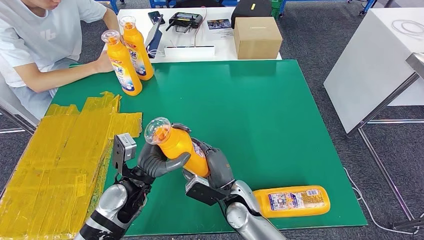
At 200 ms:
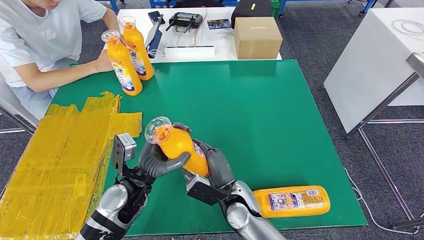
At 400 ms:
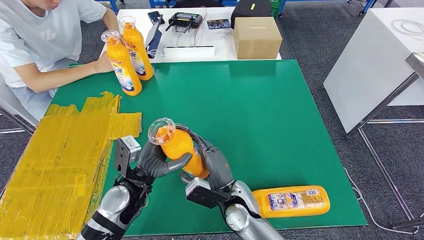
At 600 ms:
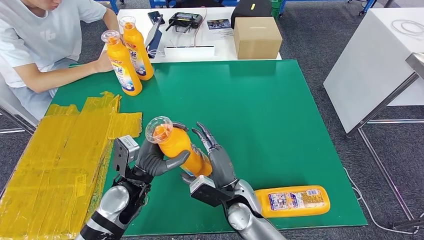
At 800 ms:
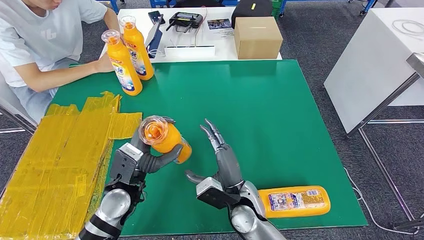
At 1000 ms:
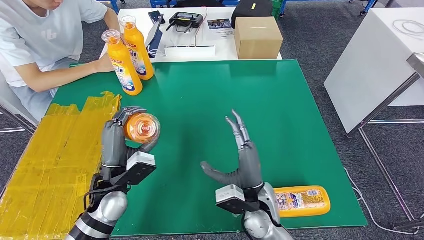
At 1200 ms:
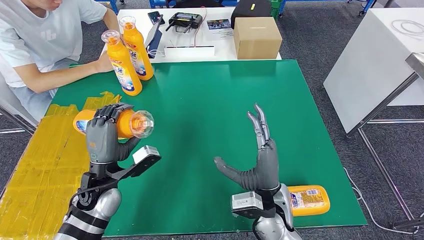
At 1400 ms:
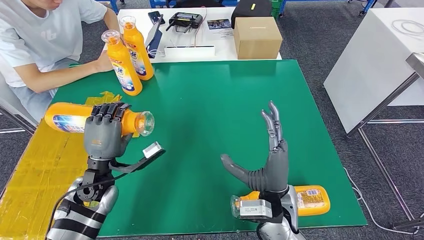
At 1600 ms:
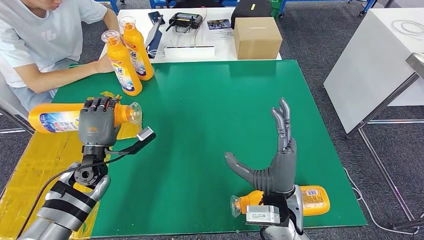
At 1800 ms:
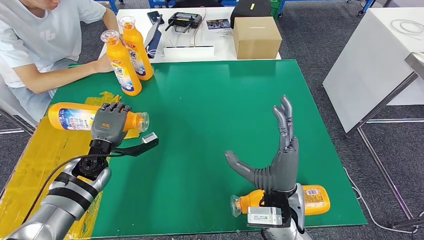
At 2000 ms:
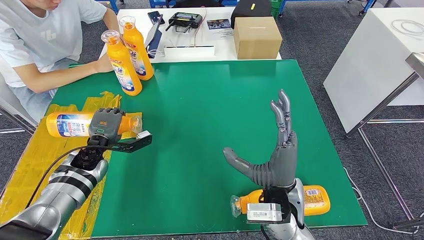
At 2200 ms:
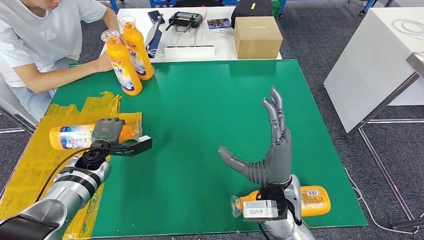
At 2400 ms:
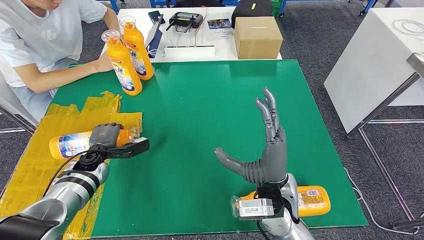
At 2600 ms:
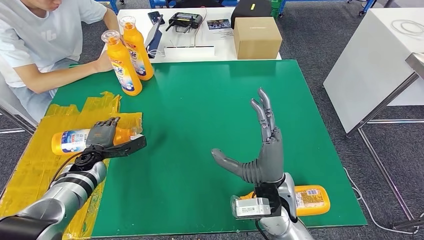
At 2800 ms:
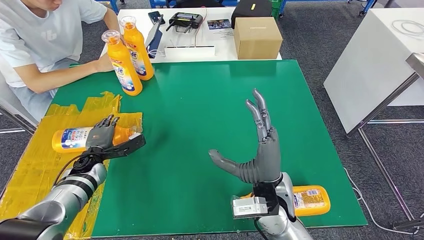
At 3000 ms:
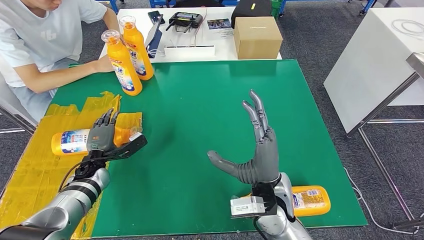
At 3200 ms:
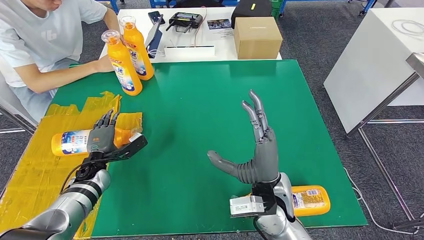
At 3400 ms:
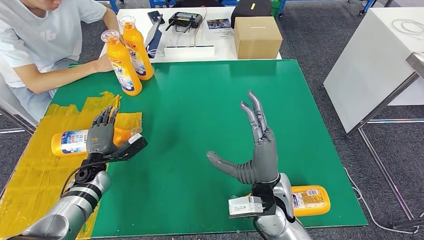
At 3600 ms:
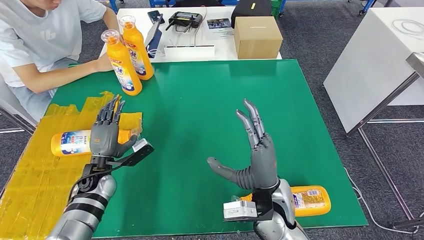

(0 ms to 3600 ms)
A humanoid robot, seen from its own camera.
Step, 0 ms - 3600 ms: Flip the fast-moving consumer goods bottle to the front side.
0 ms - 1800 ms: The left hand heads to the left and forward, covering about 15 cm; the right hand heads upward and to the right, covering about 15 cm.
1800 ms - 3600 ms: The left hand shifts by some 5 cm.

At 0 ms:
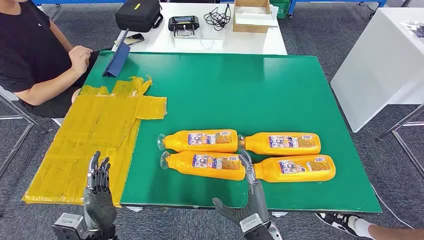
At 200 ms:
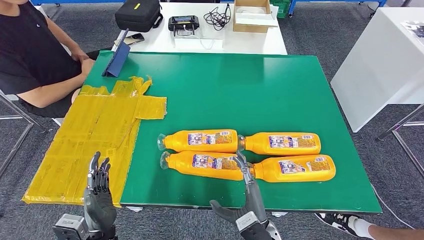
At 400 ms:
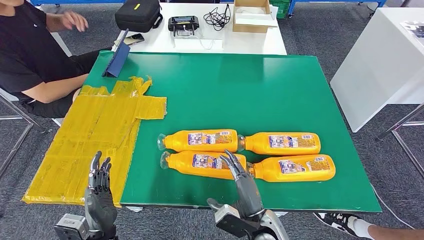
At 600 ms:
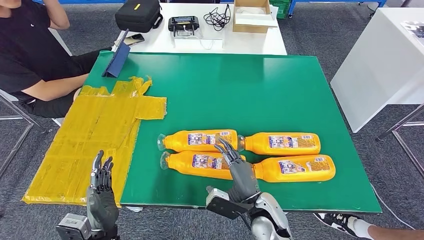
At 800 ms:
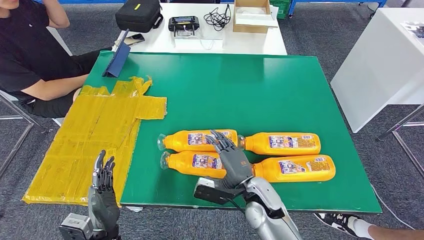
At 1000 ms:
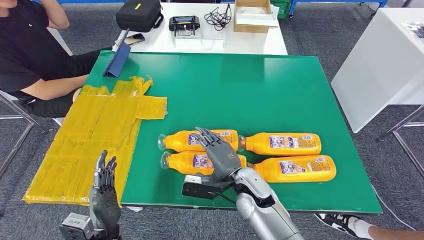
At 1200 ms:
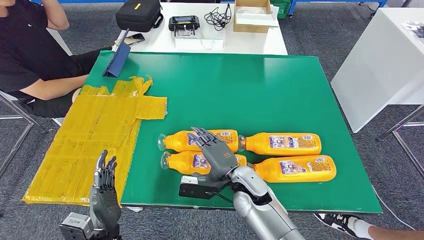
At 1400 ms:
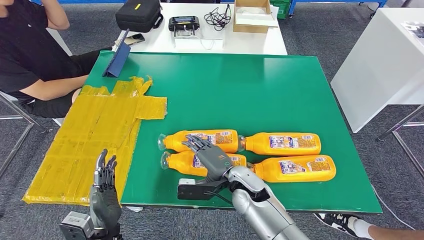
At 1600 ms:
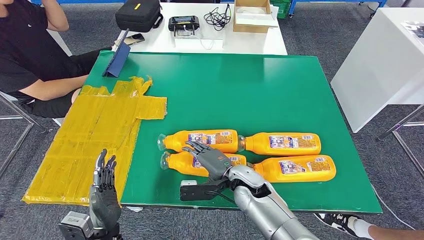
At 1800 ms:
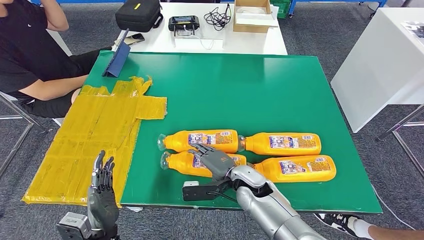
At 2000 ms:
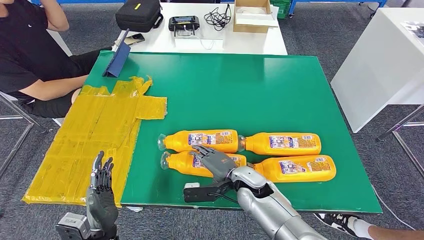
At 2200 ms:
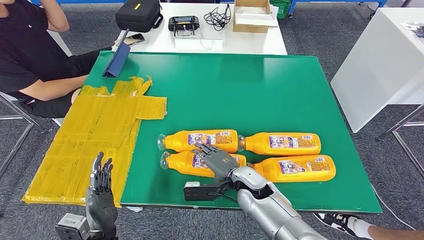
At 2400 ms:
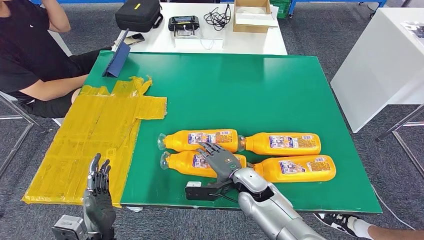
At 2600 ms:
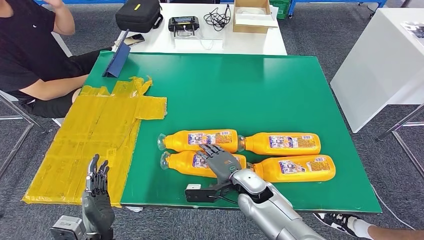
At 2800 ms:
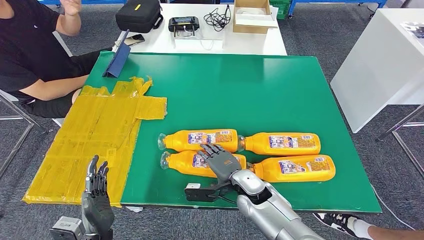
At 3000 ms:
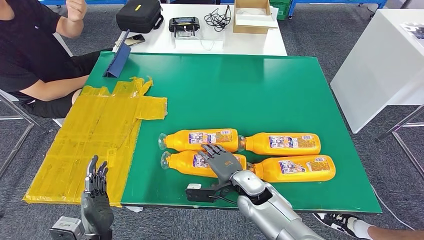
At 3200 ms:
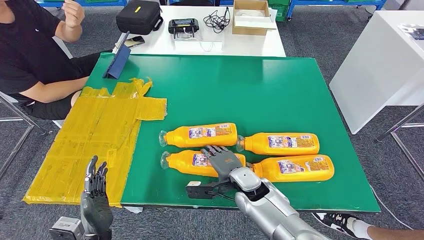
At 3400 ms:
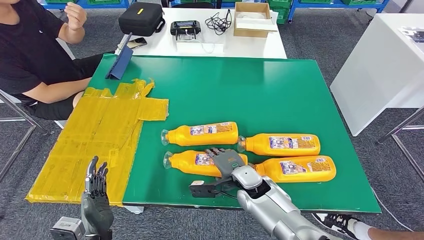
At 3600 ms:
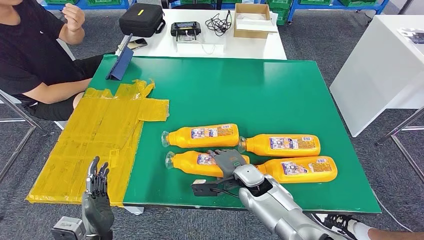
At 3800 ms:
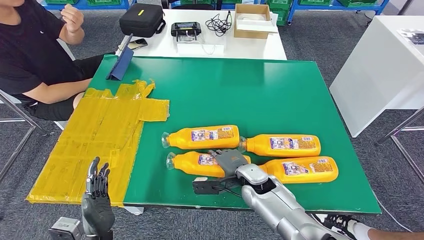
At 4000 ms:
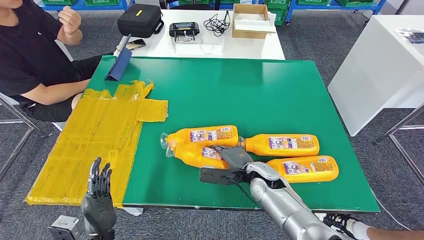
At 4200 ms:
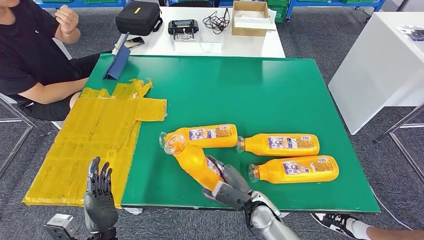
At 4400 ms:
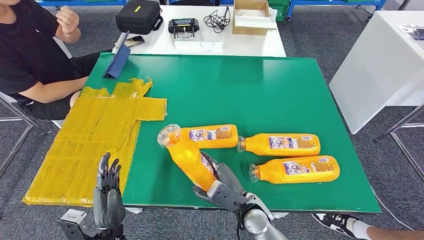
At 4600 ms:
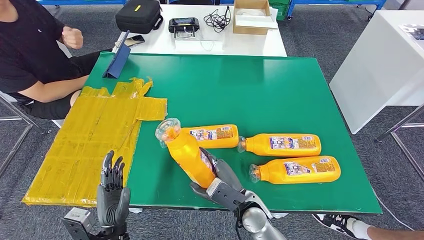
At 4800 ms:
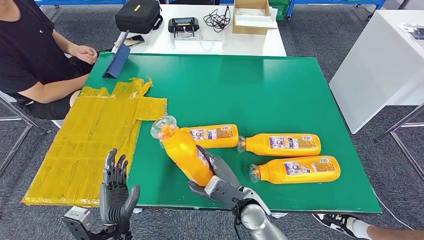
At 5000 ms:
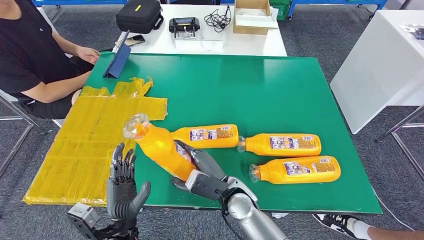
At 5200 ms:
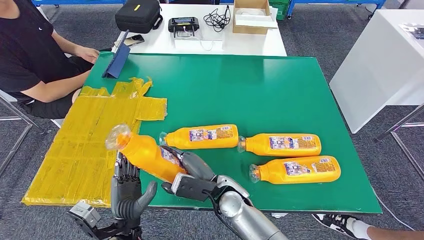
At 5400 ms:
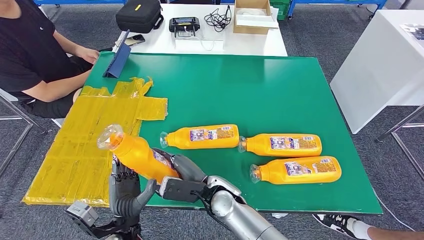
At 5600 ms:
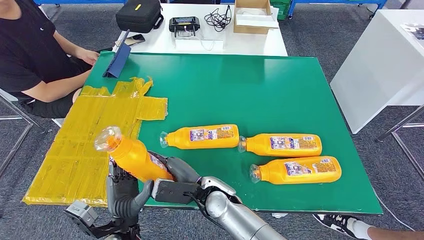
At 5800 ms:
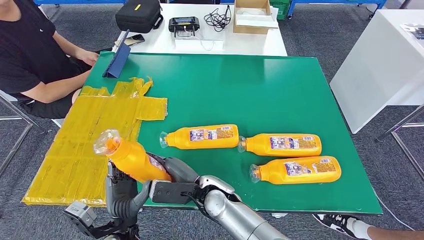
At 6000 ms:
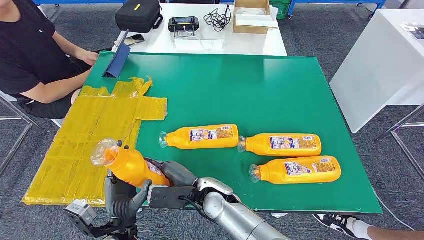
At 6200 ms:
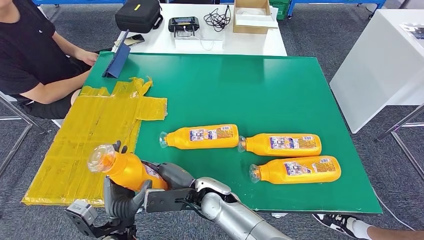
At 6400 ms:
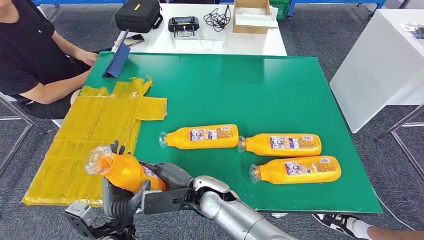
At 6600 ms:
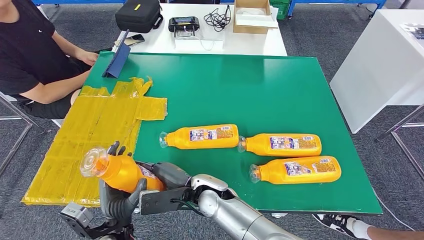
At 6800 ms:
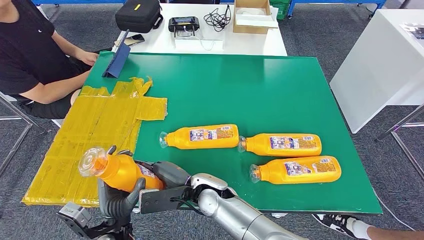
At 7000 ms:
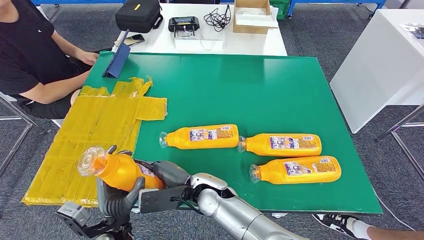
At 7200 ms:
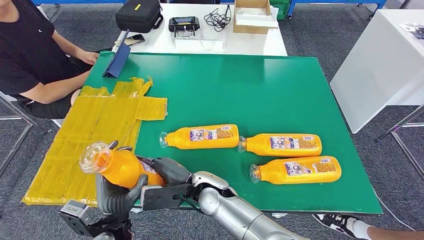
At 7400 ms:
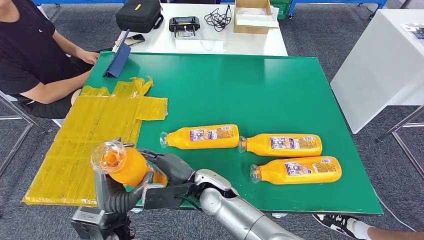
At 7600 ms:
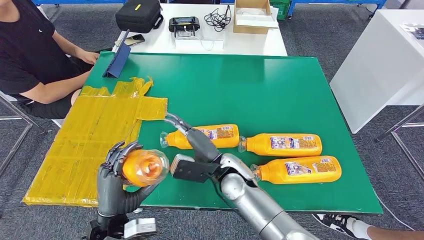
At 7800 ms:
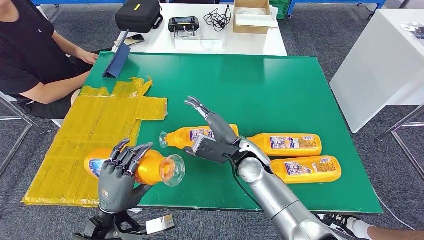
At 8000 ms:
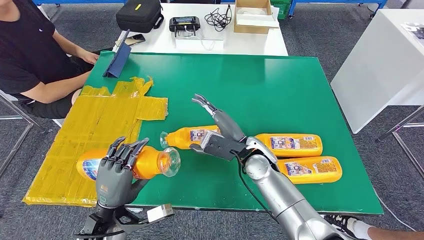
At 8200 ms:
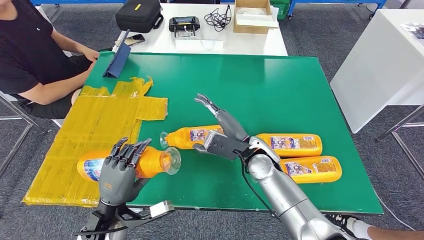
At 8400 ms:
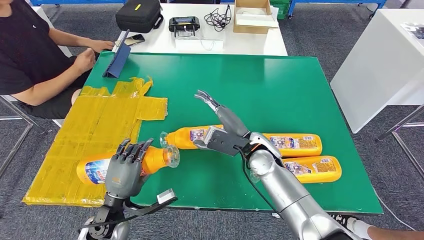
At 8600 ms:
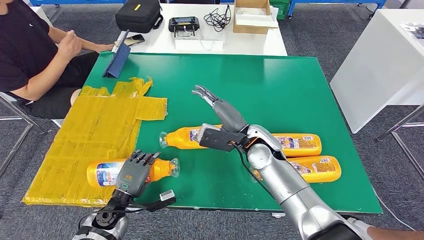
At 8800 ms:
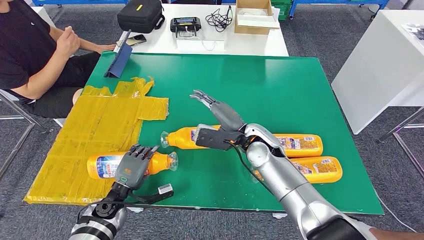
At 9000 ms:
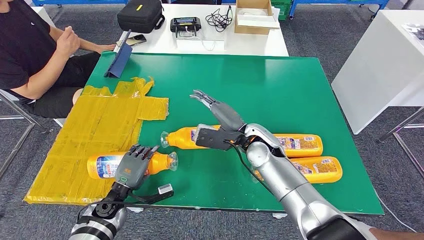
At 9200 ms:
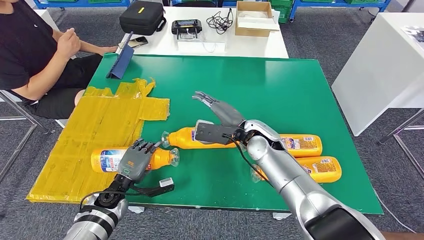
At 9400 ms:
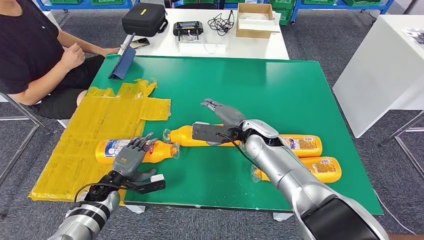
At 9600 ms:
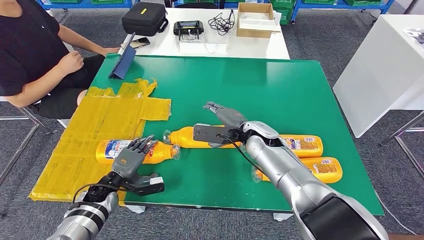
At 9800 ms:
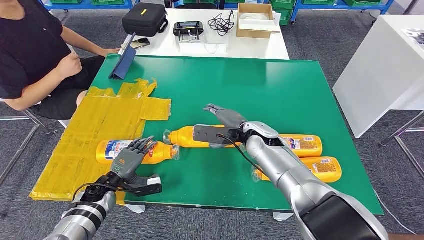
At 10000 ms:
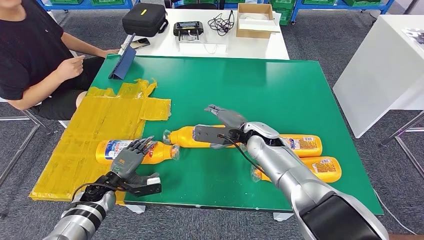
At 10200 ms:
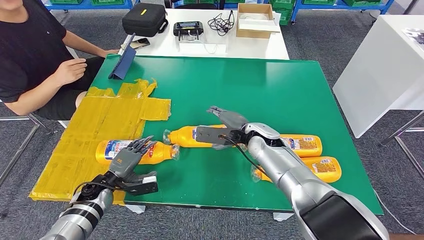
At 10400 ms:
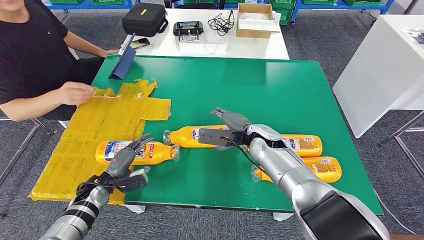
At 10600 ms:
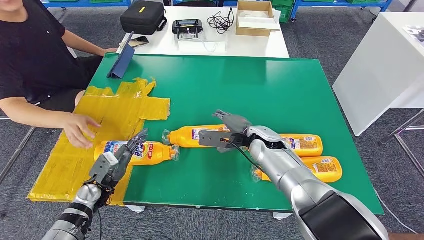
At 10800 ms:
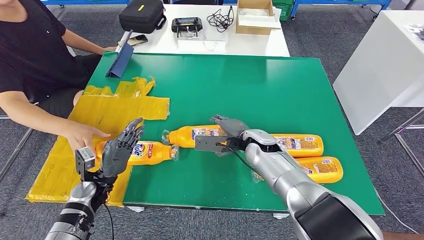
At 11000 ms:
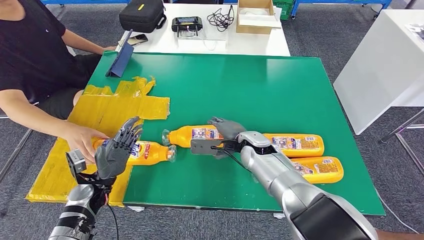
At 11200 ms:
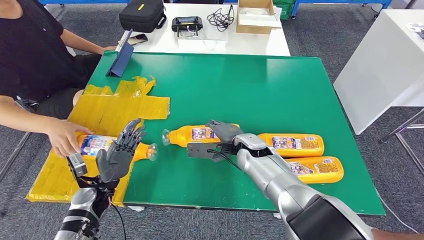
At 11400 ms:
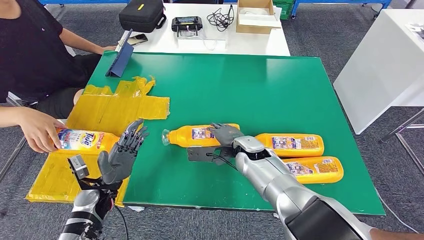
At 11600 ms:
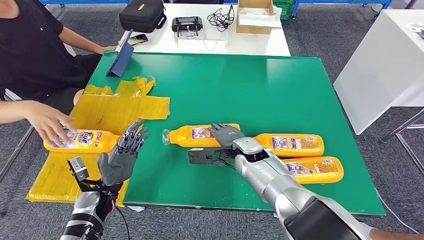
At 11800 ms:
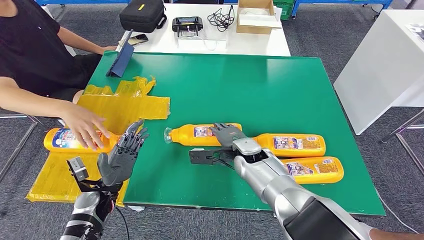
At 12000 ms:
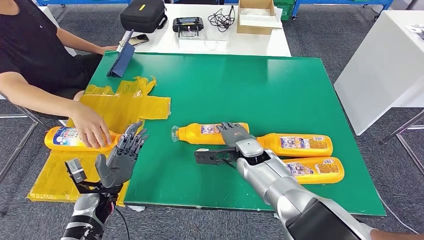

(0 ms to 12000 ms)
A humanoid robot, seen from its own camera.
Step, 0 ms - 5800 ms: Take the fast-moving consumer goods bottle from the table.
3000 ms - 4400 ms: The right hand is displaced backward by approximately 5 cm.
4400 ms - 6000 ms: The right hand shifts some 10 cm to the left.
6000 ms - 7600 ms: The right hand shifts by approximately 10 cm.

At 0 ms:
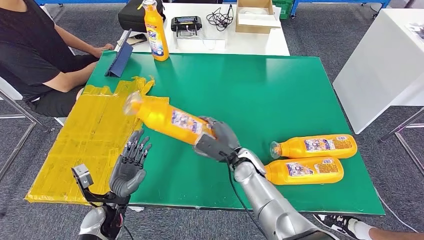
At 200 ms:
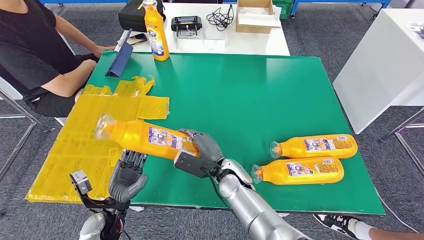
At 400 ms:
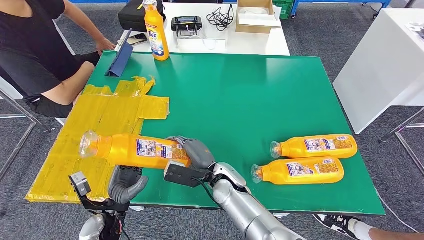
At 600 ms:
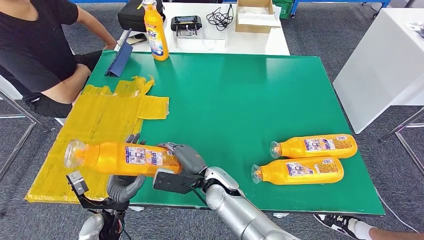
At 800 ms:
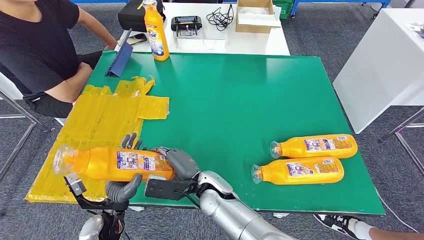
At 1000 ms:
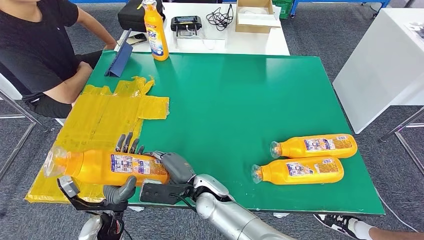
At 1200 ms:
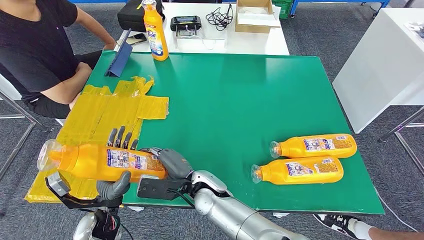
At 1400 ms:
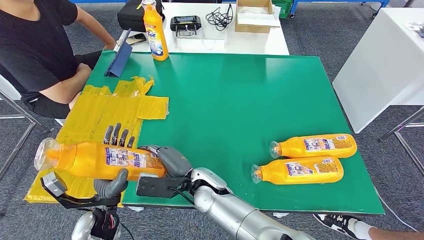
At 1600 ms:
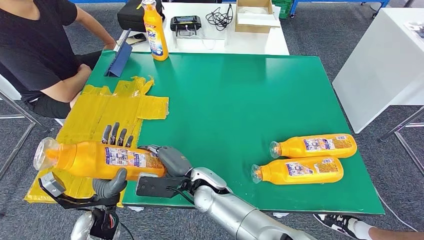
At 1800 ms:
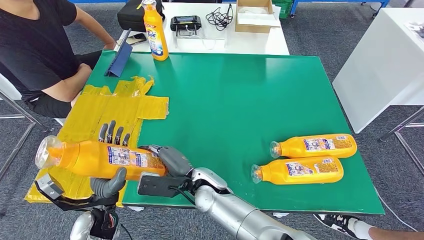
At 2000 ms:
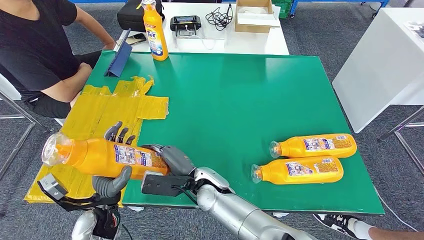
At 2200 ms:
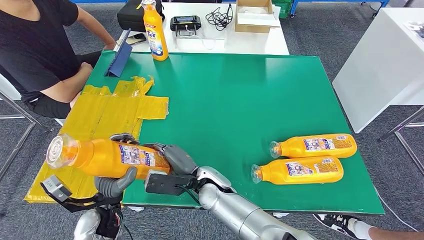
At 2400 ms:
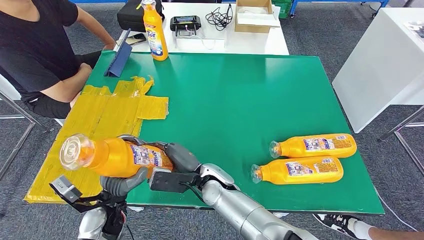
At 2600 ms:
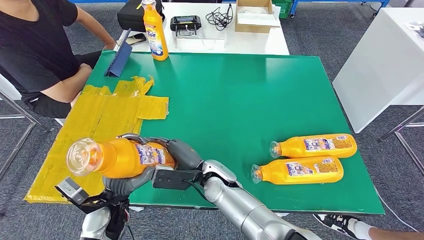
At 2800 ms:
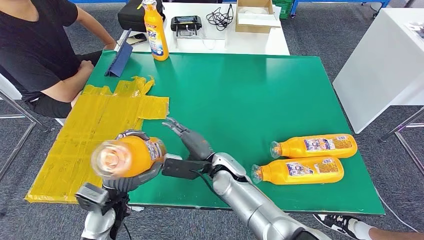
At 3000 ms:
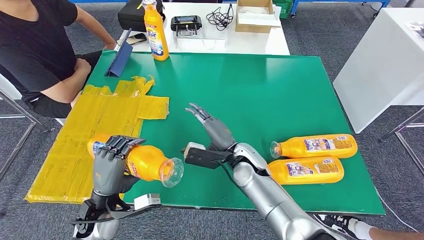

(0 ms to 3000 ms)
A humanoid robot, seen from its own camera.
1600 ms - 3000 ms: The right hand goes roughly 15 cm to the right and forward.
